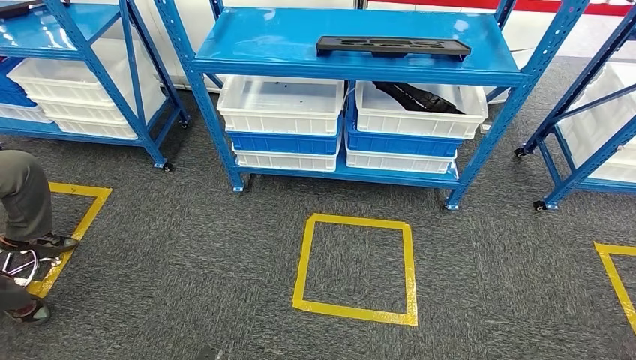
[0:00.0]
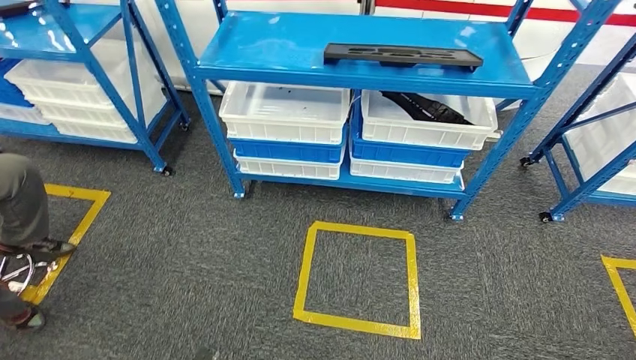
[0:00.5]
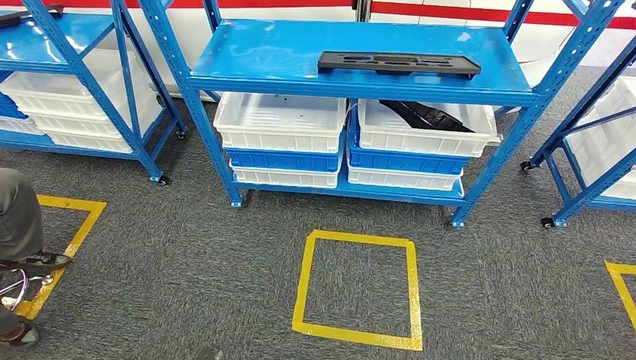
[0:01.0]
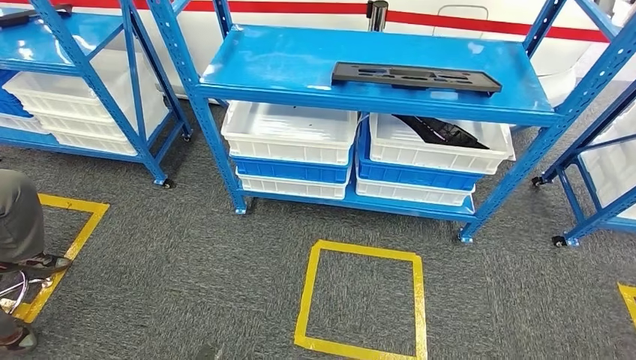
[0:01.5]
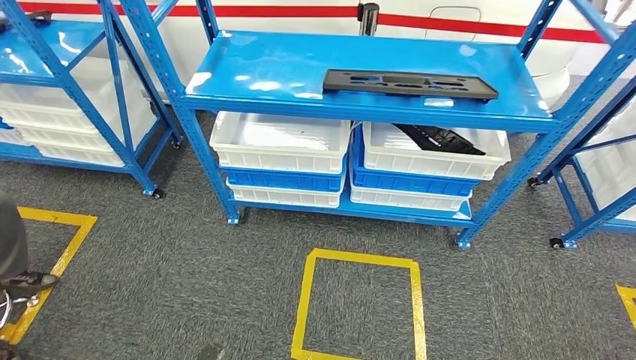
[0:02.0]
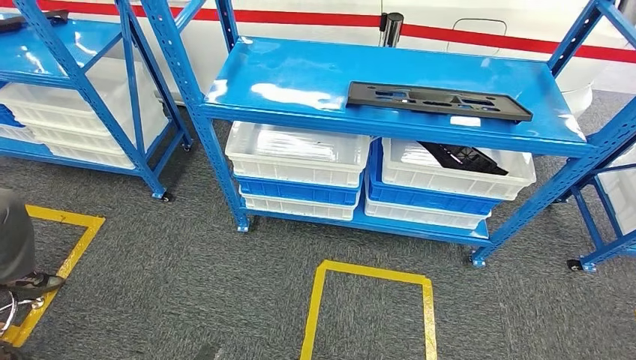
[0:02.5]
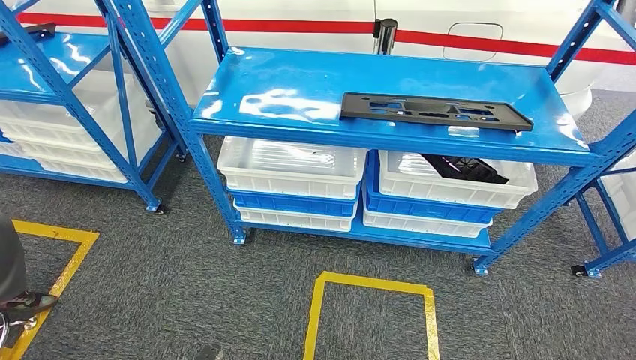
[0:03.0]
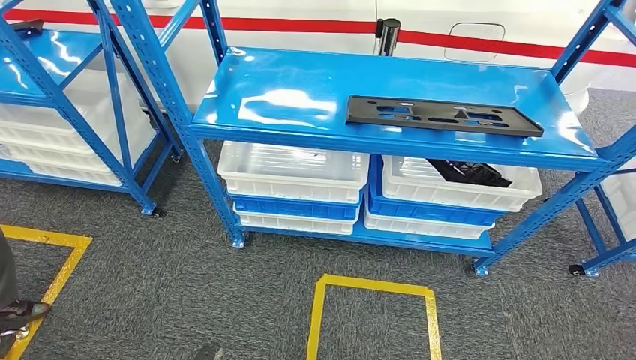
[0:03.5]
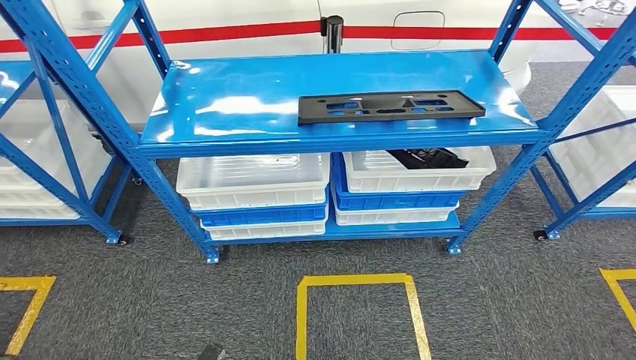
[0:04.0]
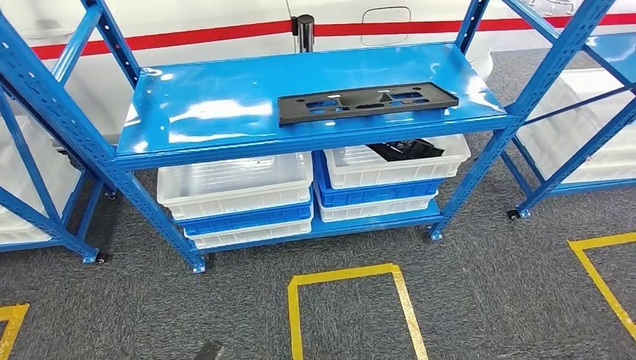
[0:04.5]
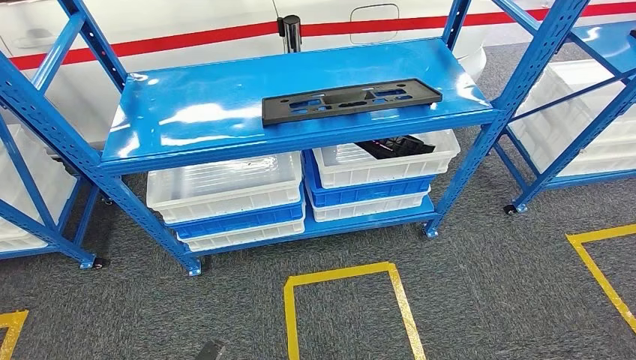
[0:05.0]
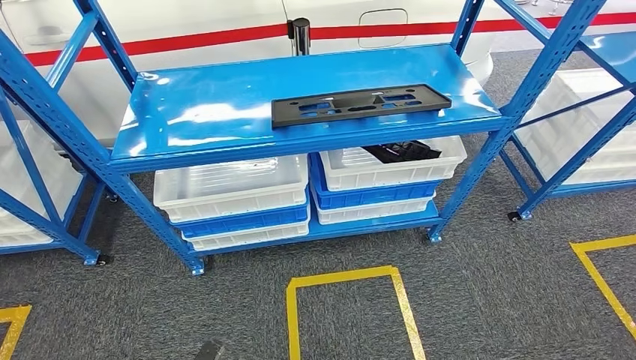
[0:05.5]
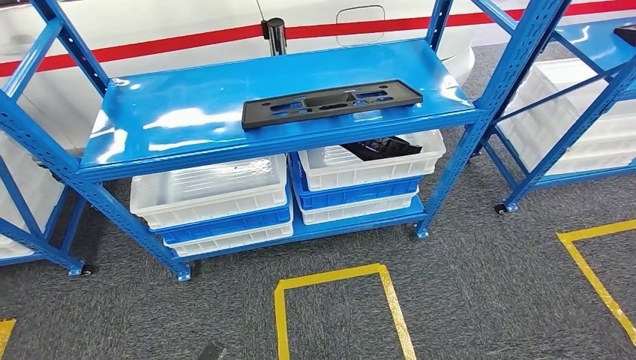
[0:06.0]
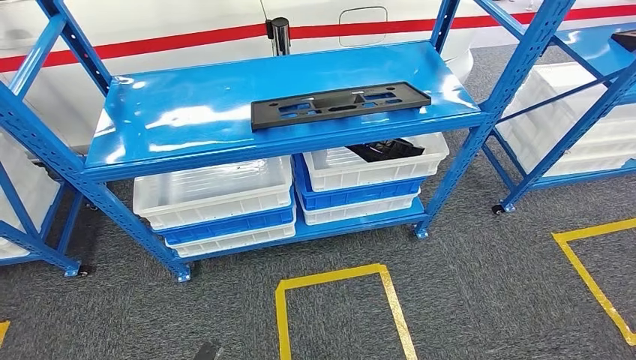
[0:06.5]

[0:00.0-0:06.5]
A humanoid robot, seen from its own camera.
Step, 0:00.0 to 0:06.5: Return to the initial position at the shelf.
